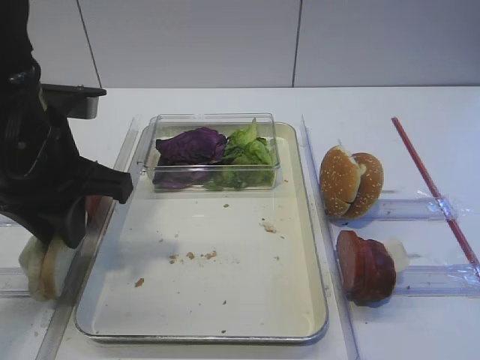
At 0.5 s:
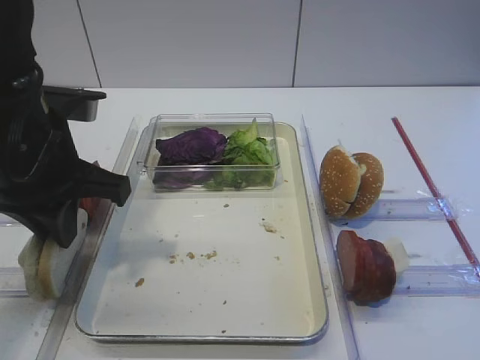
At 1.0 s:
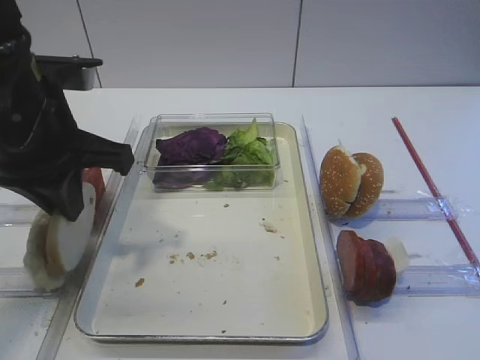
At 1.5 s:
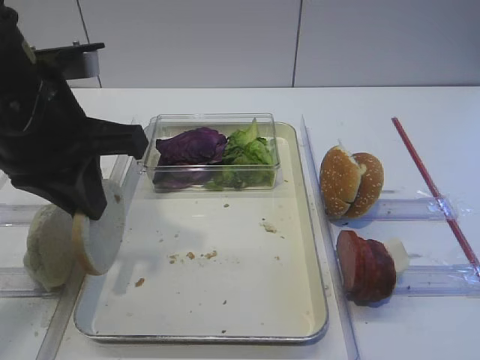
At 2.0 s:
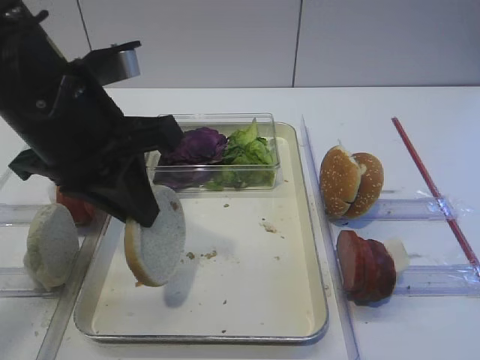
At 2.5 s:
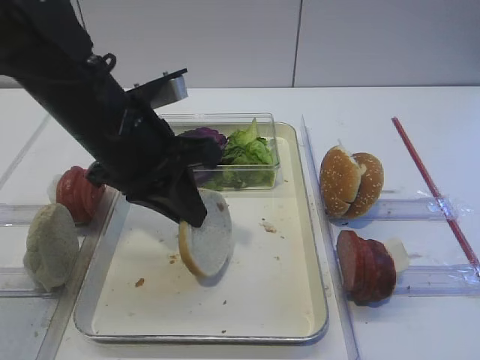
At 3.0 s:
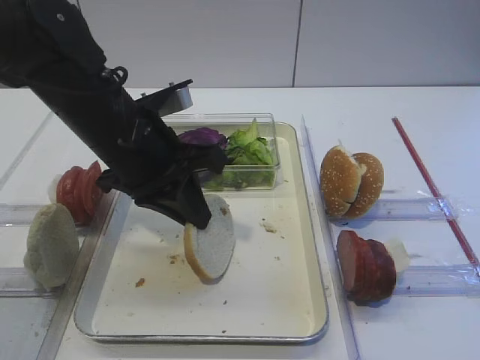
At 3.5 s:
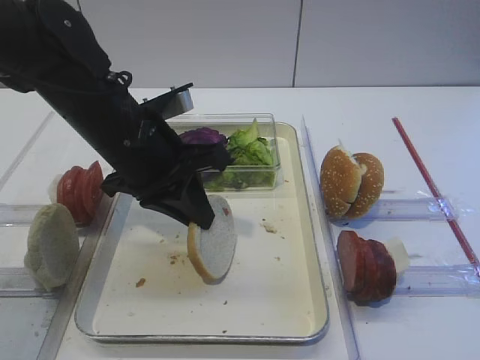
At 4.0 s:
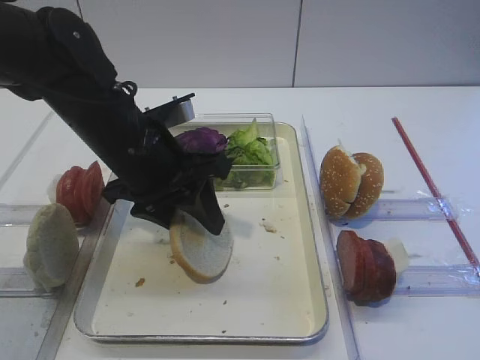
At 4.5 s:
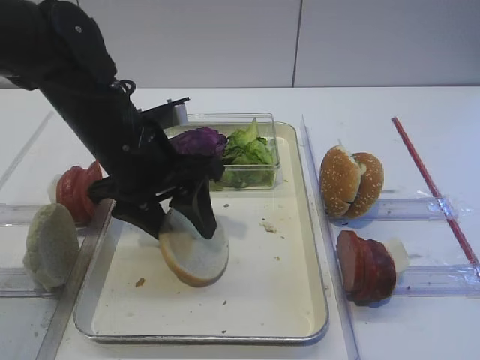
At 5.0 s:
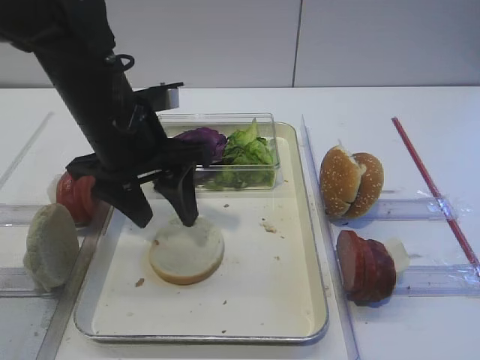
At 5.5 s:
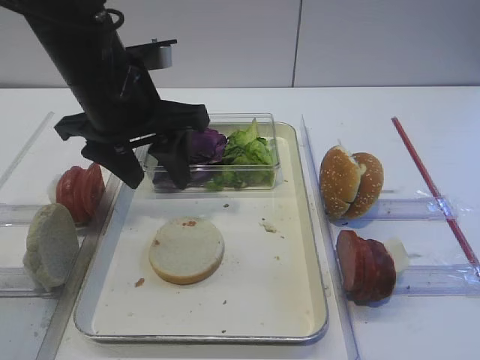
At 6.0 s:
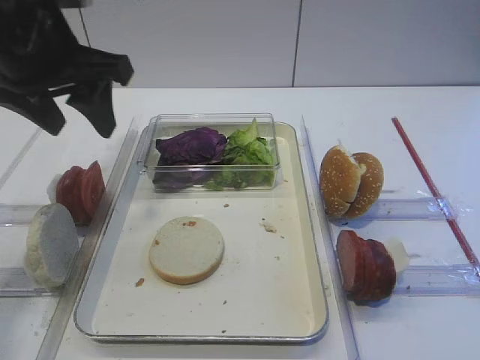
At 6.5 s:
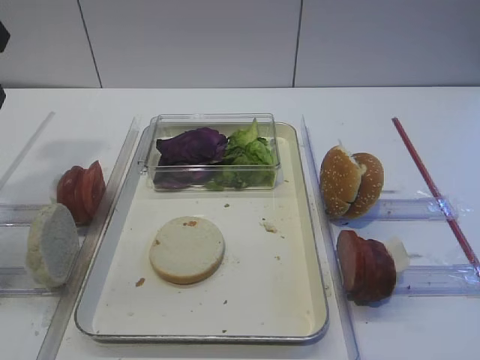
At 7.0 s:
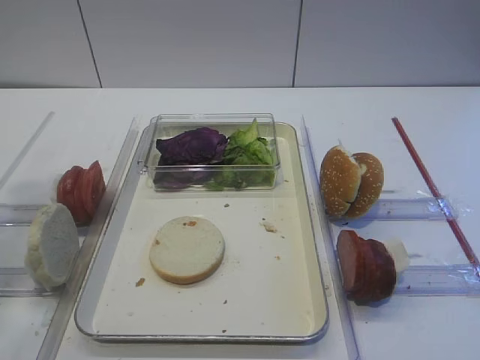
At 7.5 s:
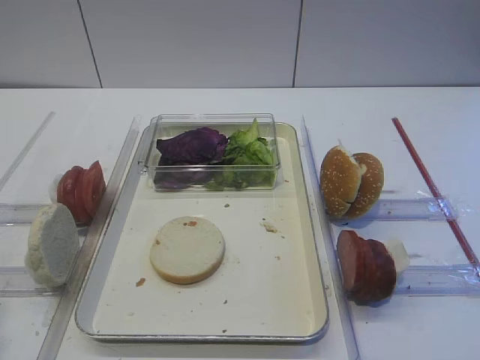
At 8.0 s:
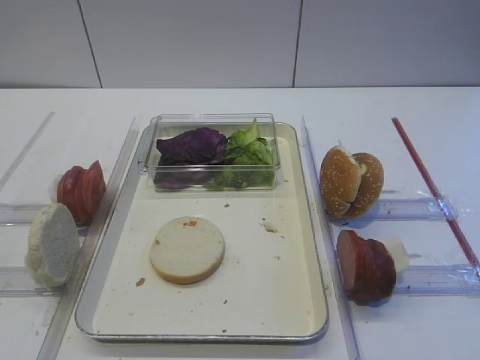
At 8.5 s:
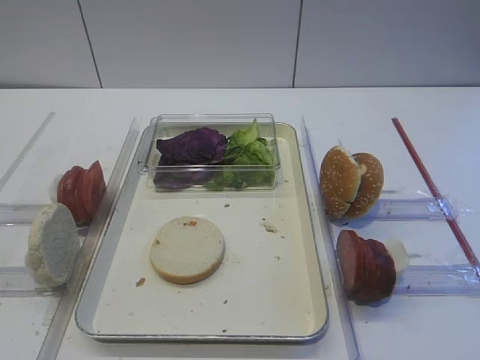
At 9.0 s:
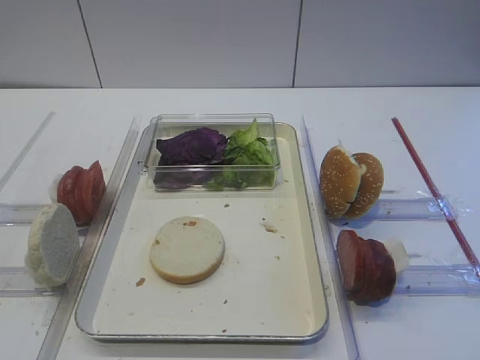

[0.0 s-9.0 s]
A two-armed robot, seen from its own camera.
Step, 1.5 to 5.0 s: Place the bread slice on the tray with the left gripper.
0.0 to 2.0 s: The left gripper closes its fingers.
2.0 to 4.5 s: The left gripper moves downward and forward, some 10 cm, and opens.
4.5 to 7.0 s: The left gripper moves to the left, upward and backward, approximately 25 cm.
7.0 to 9.0 s: The left gripper is displaced backward and downward by approximately 20 cm.

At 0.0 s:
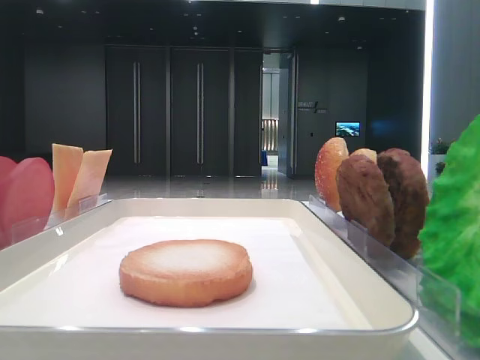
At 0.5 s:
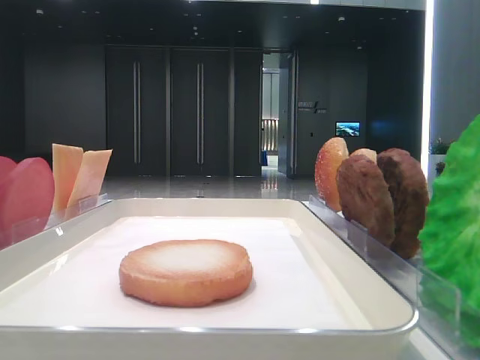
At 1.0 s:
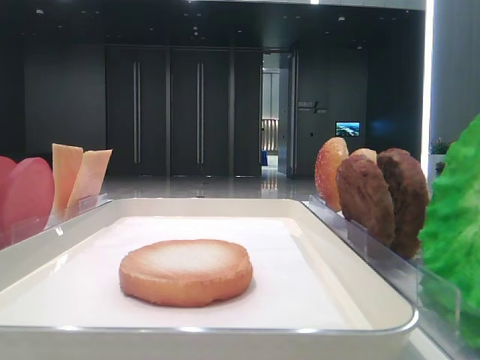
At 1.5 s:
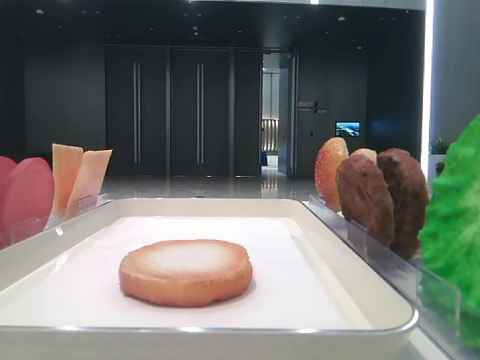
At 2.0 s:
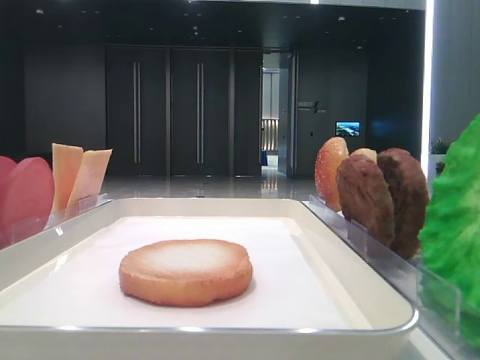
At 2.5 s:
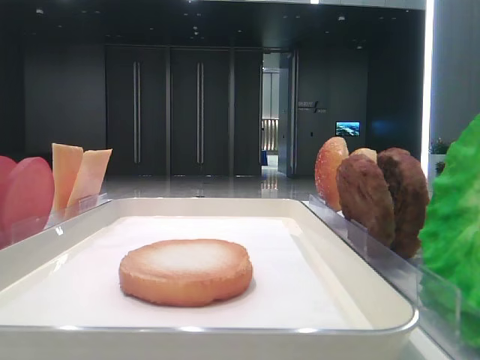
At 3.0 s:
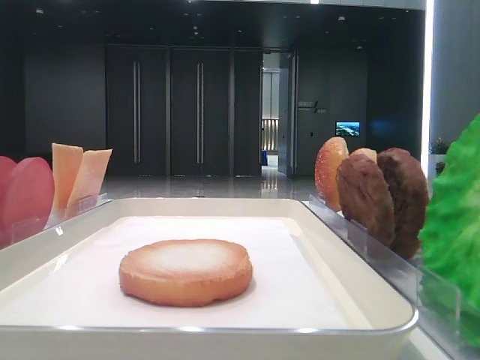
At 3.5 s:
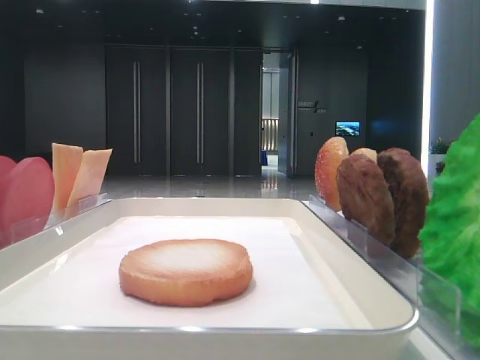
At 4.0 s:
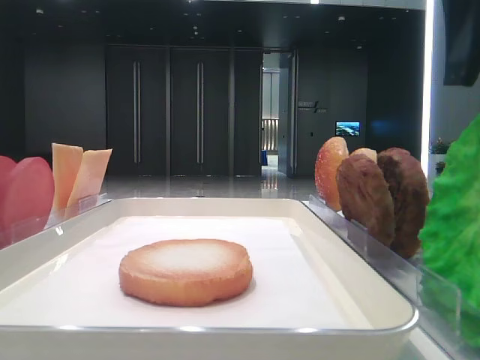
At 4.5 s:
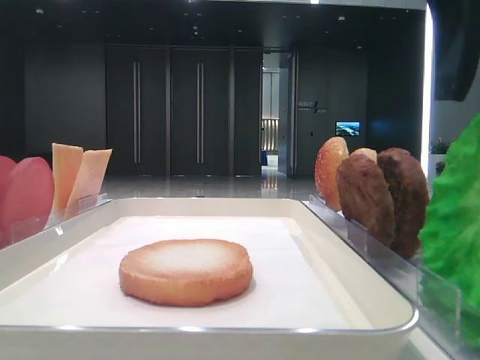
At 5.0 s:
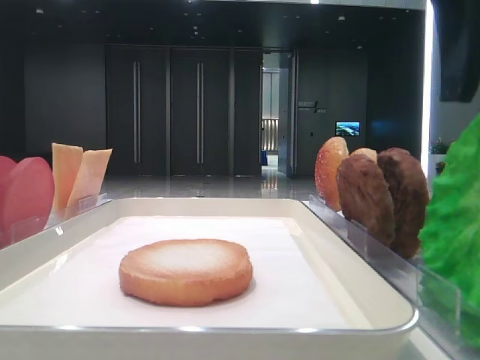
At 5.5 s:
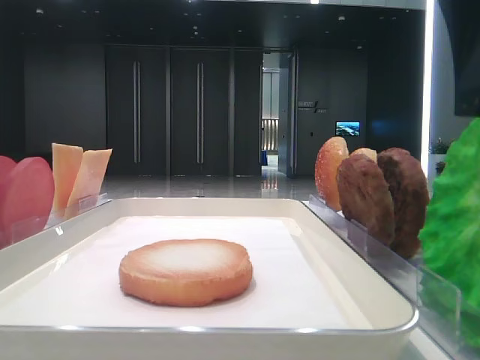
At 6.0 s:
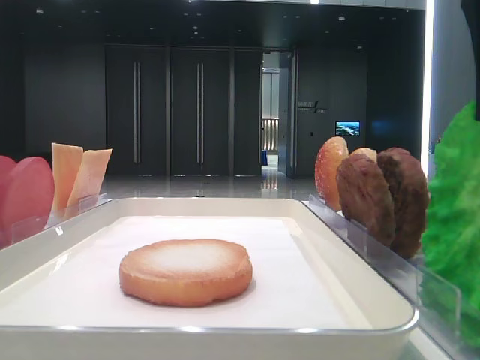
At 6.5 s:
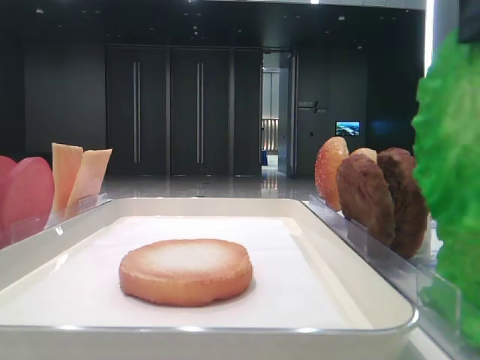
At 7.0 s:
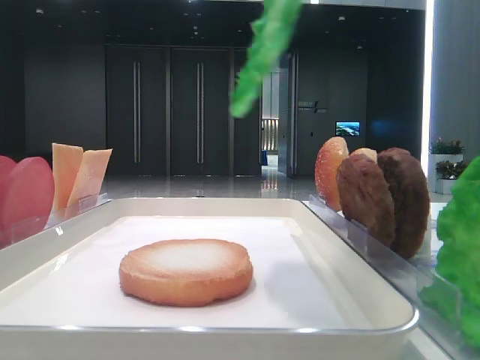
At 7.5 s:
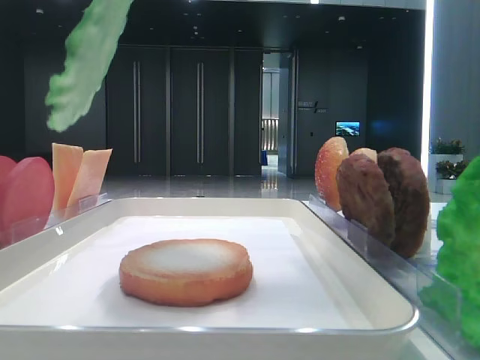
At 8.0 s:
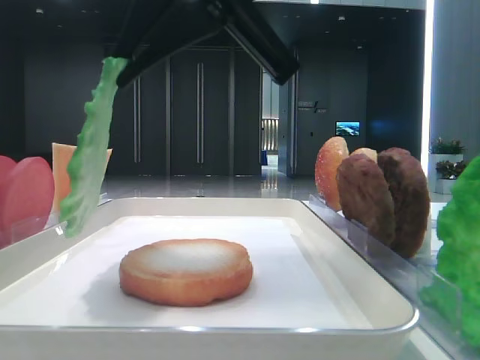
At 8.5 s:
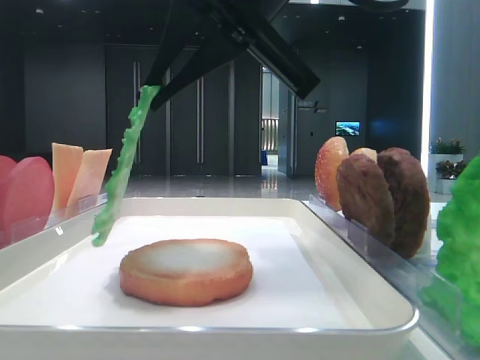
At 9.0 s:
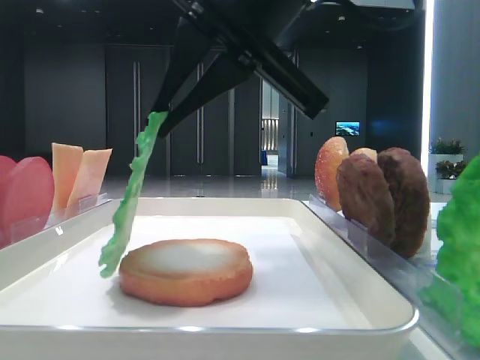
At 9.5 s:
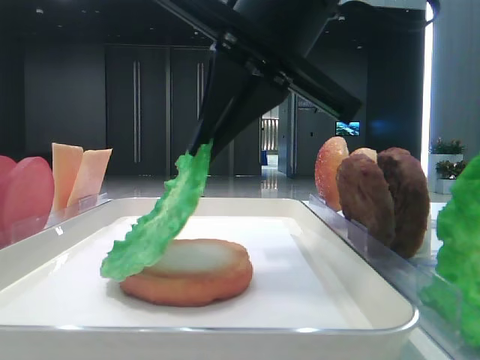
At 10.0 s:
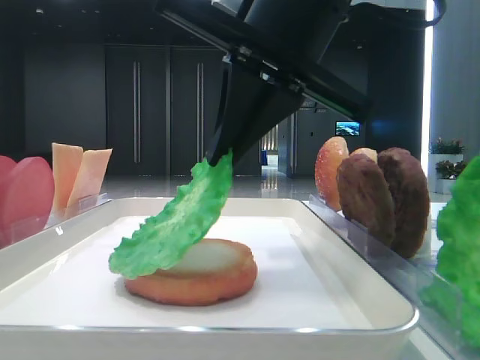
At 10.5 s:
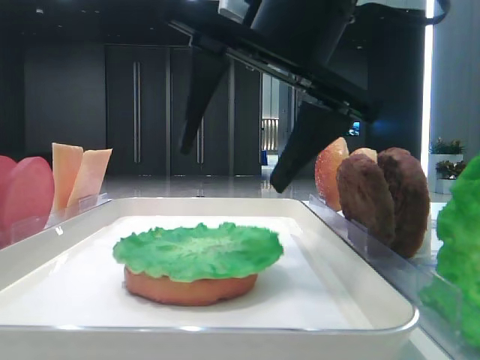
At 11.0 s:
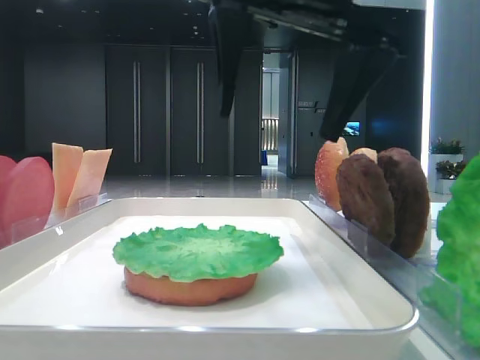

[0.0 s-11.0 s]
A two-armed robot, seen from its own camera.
Step, 0.0 to 5.5 s: Grab the lettuce leaf with the right hand.
Step, 6.0 to 10.0 s: Place the lettuce leaf on the bottom bread with the right hand.
3.5 to 5.5 s: The right gripper shifts by some 5 cm.
5.5 to 7.5 s: The right gripper travels to the left and upward by about 15 cm, and closes its fingers.
7.5 to 9.0 s: The right gripper goes some 10 cm downward.
9.0 to 11.0 s: The right gripper opens up.

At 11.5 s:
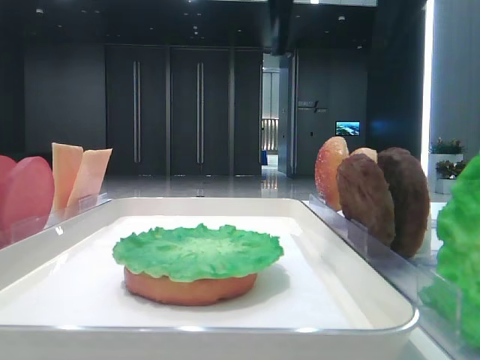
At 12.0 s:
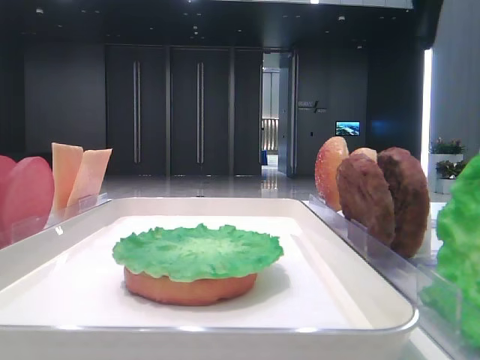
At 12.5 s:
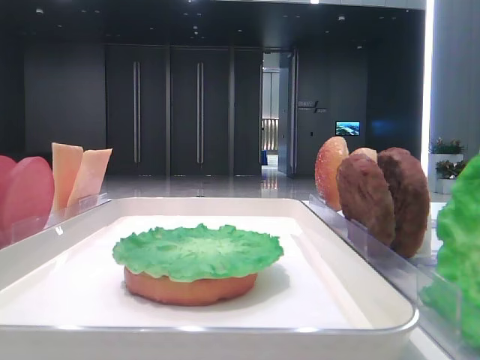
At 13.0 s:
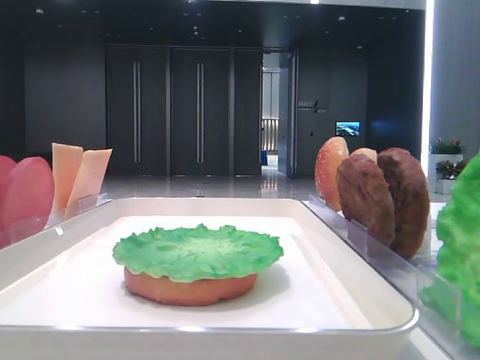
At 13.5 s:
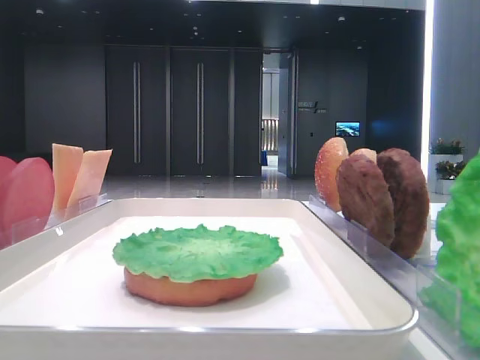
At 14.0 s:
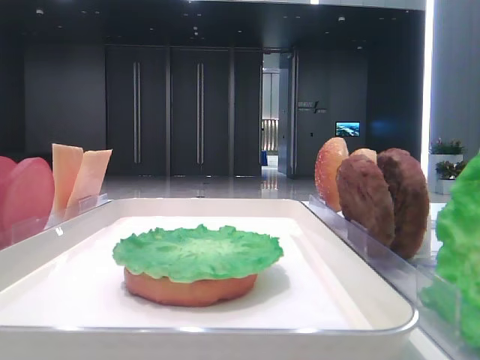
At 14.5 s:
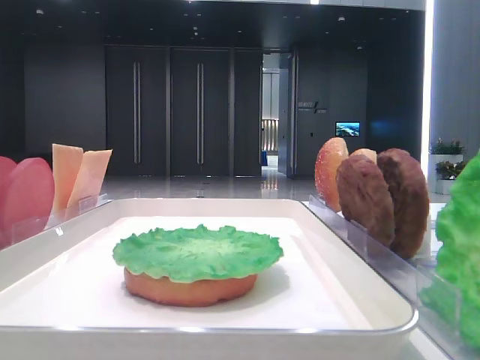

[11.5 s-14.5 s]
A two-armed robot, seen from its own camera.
11.5 to 13.0 s: The right gripper travels to the right by roughly 20 cm.
